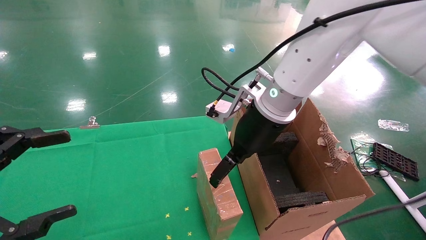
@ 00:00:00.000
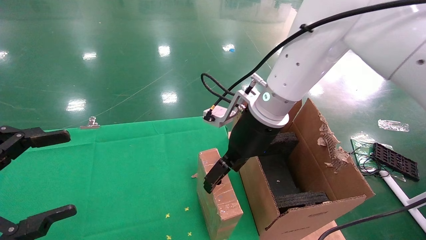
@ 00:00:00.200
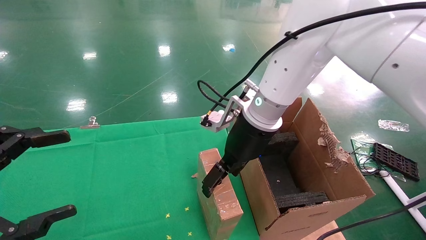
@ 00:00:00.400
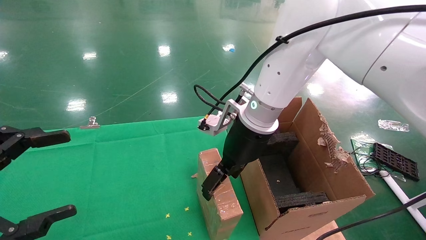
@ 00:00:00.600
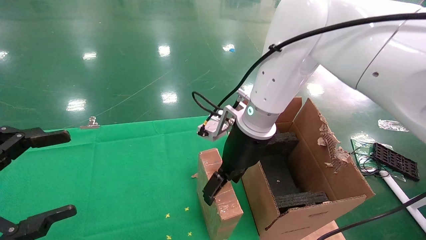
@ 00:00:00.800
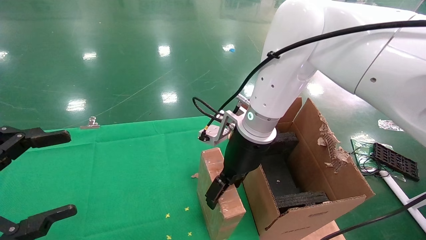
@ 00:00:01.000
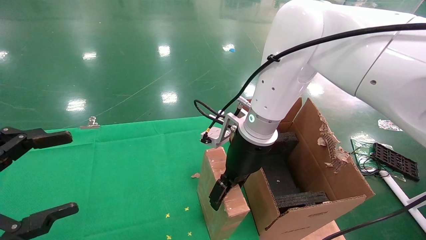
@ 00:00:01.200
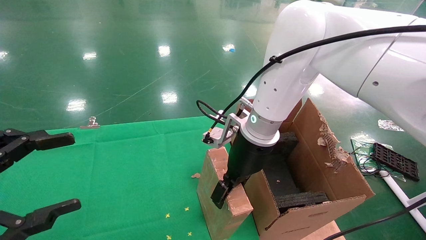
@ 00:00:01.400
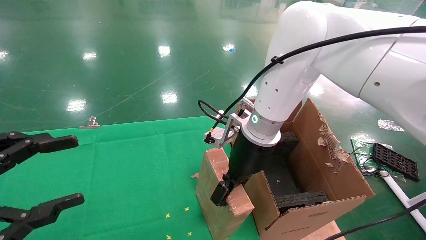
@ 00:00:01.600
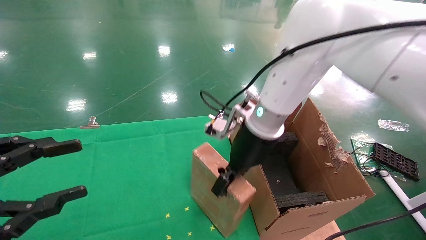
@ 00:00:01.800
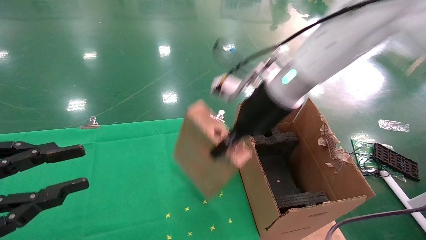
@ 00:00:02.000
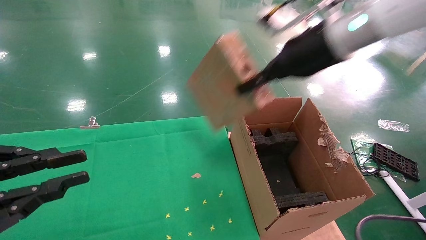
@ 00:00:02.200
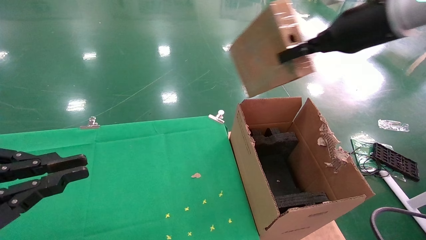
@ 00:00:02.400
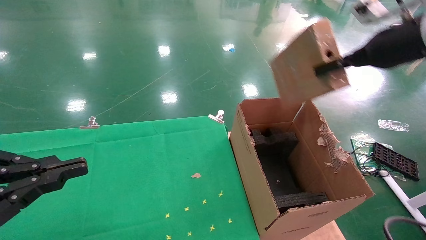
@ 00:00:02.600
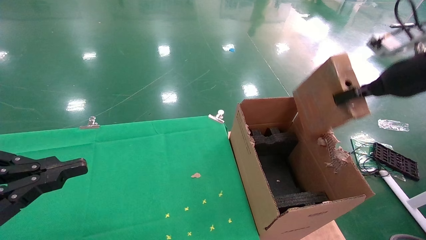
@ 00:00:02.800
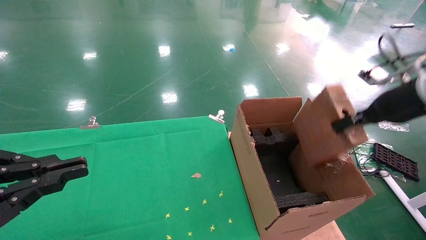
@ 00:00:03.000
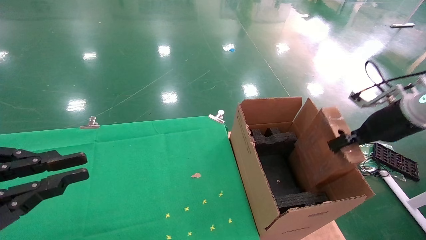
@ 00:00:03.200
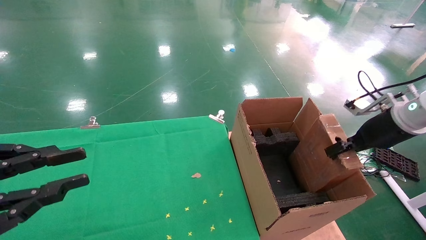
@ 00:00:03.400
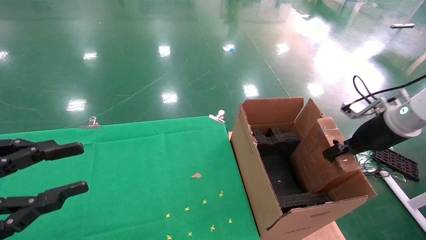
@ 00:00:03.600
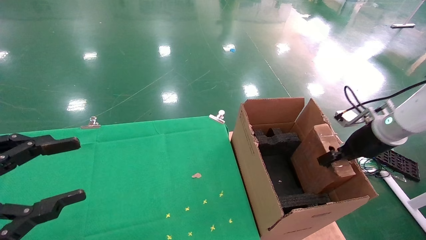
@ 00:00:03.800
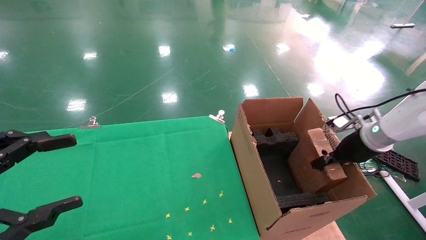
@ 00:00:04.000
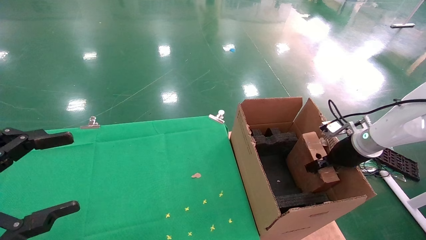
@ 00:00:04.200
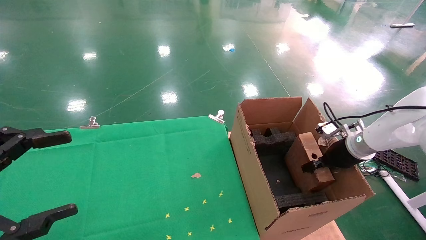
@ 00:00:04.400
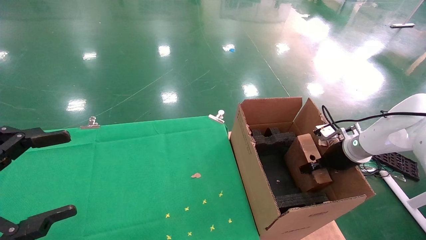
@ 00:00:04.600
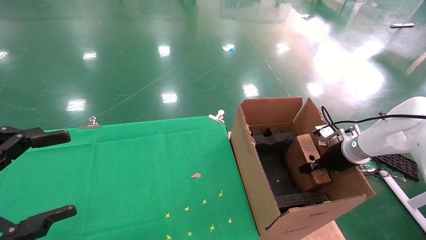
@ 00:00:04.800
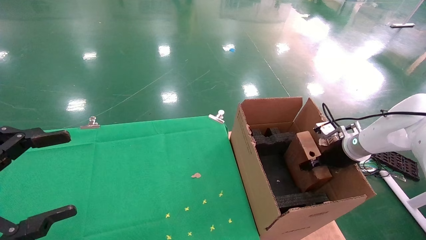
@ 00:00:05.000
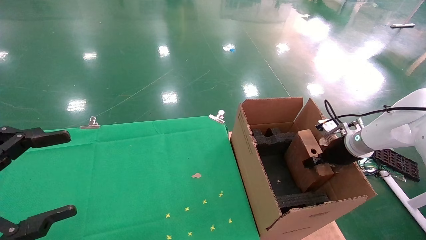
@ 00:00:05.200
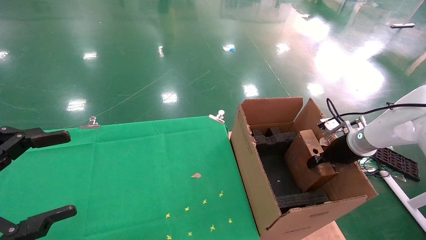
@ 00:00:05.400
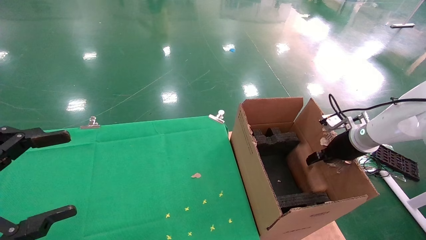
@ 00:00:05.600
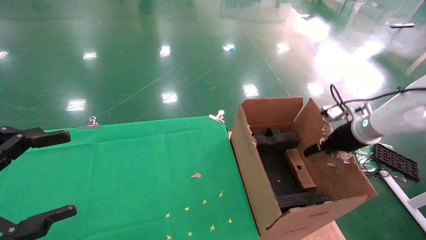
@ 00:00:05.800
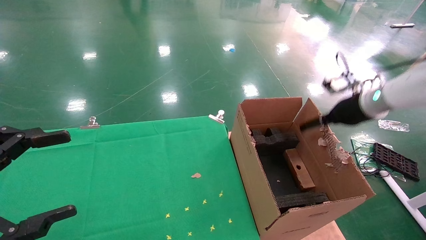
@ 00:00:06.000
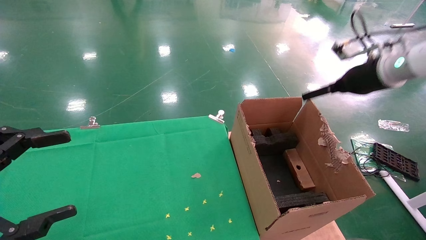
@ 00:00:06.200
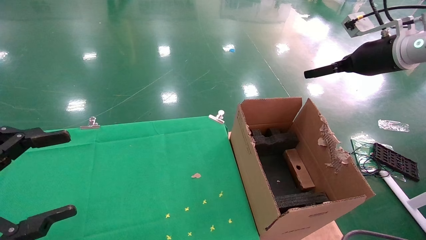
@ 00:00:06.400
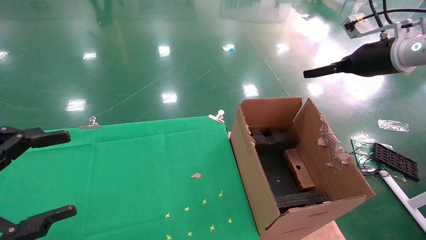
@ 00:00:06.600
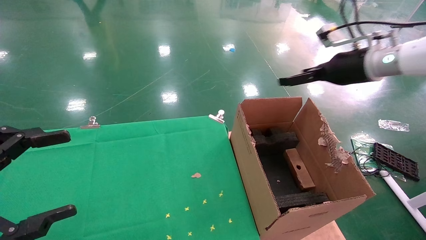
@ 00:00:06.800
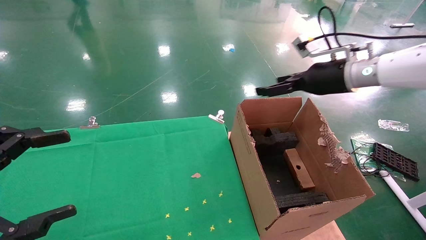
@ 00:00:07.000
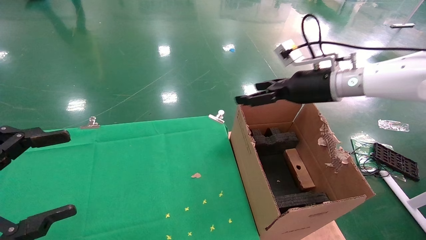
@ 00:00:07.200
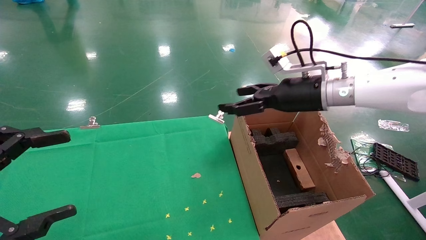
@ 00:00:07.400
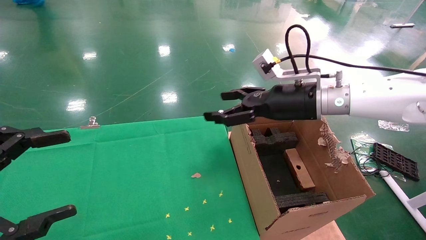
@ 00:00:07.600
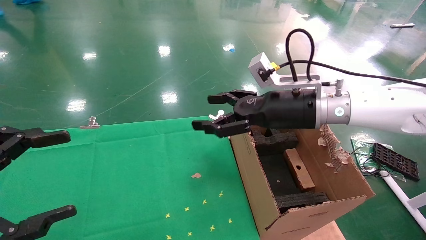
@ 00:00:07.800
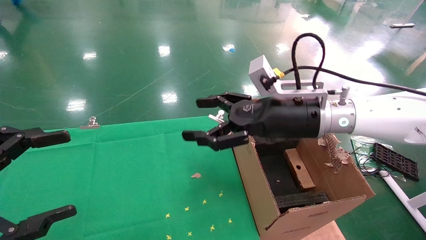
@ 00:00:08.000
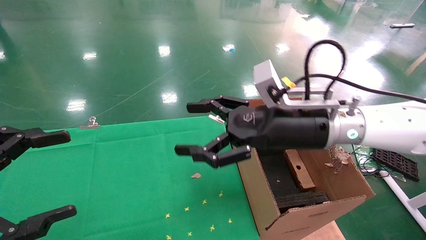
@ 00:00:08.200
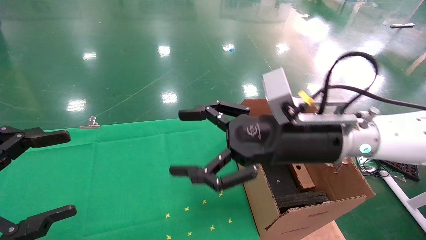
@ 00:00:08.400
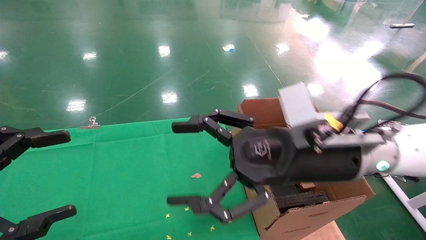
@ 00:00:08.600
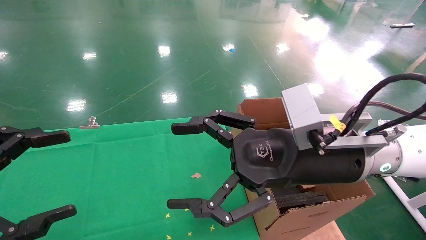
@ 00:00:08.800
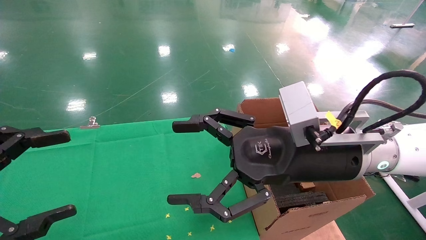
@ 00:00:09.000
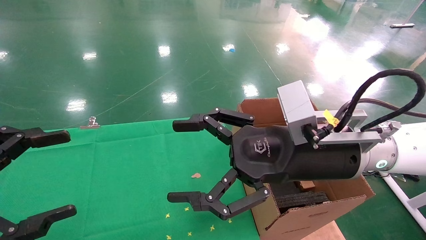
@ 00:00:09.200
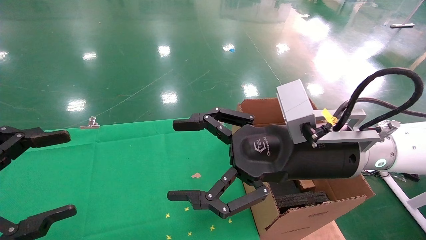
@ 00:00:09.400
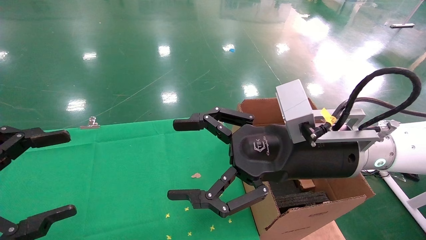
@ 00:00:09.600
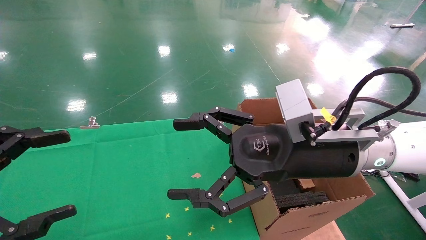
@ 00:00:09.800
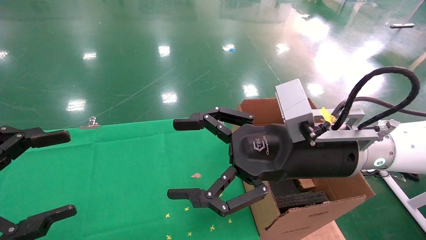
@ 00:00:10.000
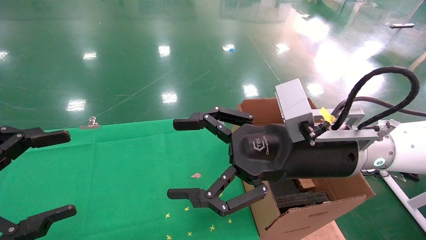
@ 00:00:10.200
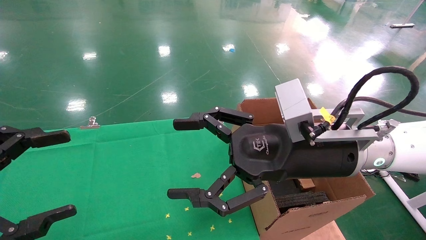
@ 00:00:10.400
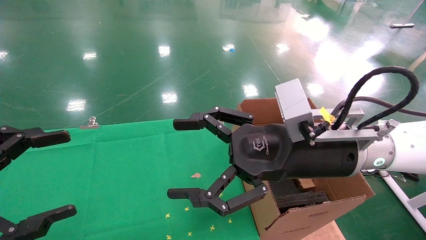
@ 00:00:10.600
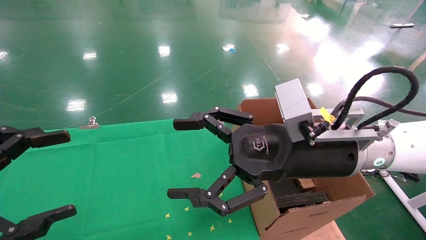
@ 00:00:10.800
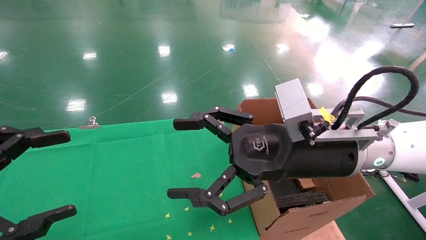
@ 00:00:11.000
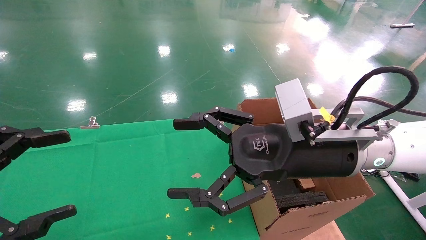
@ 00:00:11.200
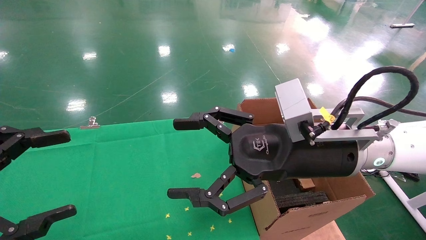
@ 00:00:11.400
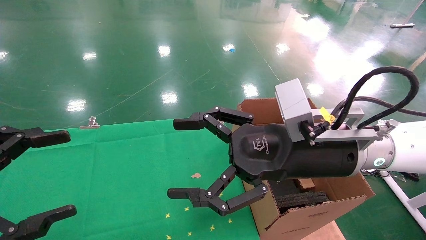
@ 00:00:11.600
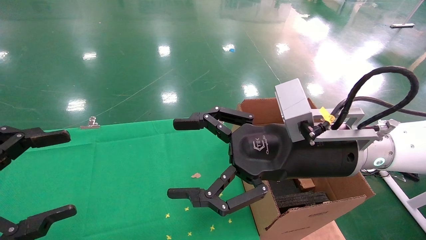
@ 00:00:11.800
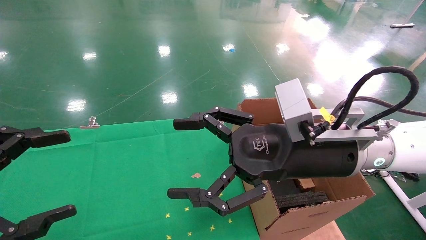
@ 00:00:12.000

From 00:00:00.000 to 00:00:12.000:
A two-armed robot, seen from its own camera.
Task of the whole recording: using a robotic arm to pick up a cardboard box and palace it the carton.
Step, from 00:00:01.800 to 00:00:06.200: Place the mouse and the power cord paper box into the container.
From 00:00:00.000 to 00:00:01.600: The right gripper closes its fingers.
From 00:00:01.600 to 00:00:03.000: The right gripper shifts roughly 30 cm to the right, and closes its fingers. The left gripper closes its fingers.
From 00:00:03.000 to 00:00:04.400: The right gripper moves downward and forward, roughly 20 cm, while the left gripper opens up.
From 00:00:04.400 to 00:00:06.000: The right gripper is displaced upward by about 15 cm, and opens its fingers.
From 00:00:06.000 to 00:00:07.600: The right gripper goes about 20 cm to the left.
From 00:00:07.600 to 00:00:09.000: The right gripper travels backward and to the left by some 15 cm.
From 00:00:09.000 to 00:00:12.000: Both grippers stay about where they are.
